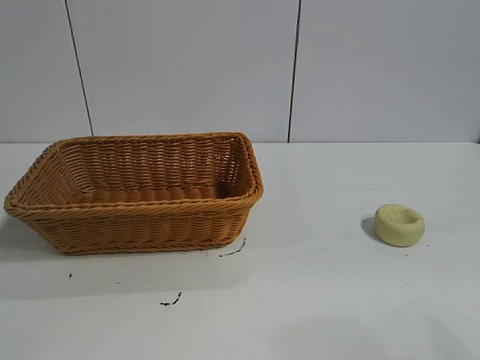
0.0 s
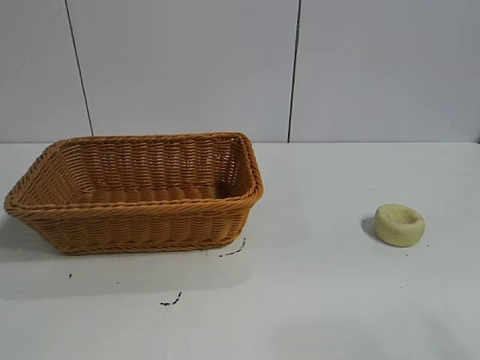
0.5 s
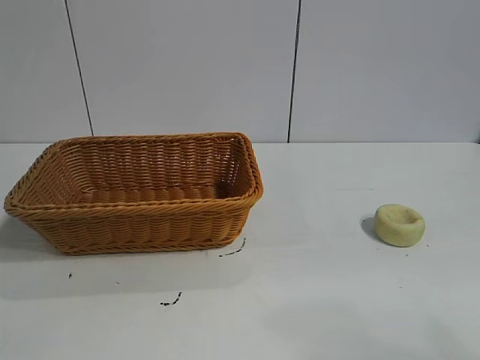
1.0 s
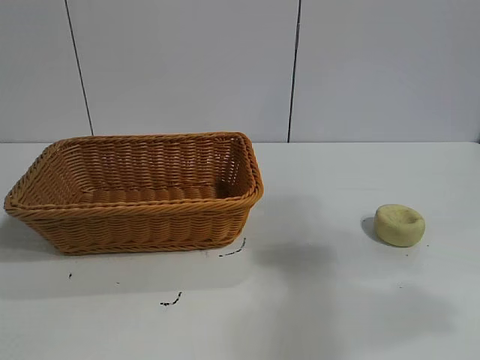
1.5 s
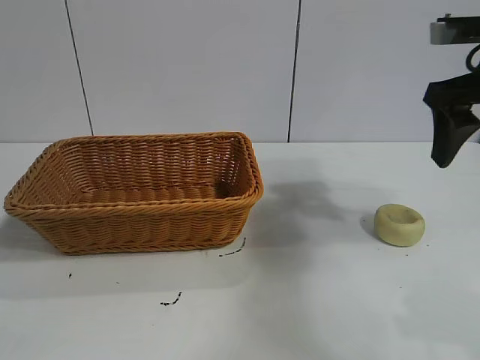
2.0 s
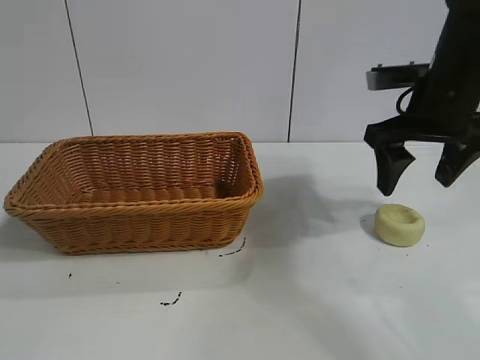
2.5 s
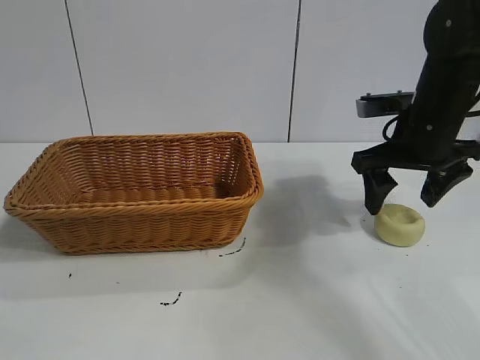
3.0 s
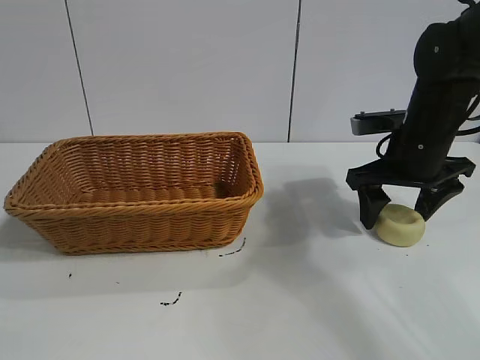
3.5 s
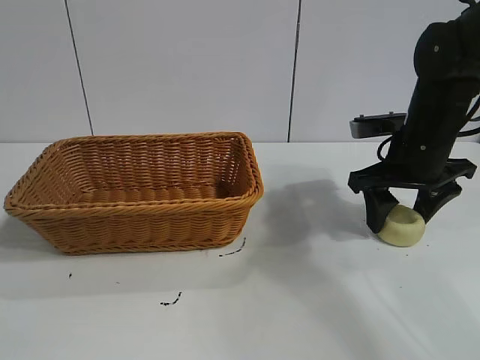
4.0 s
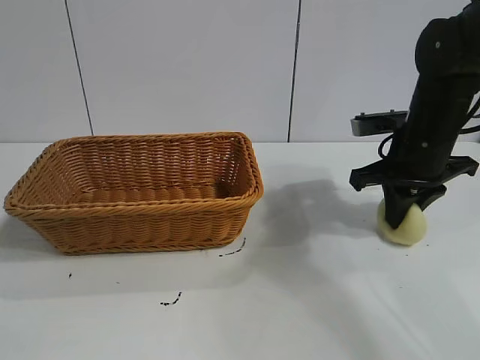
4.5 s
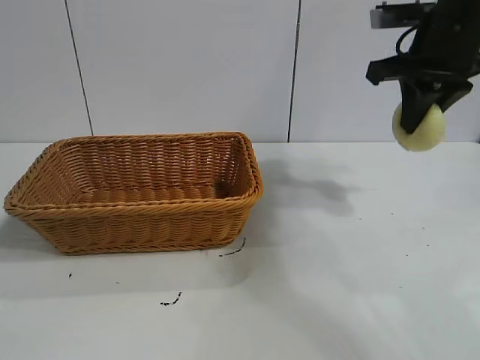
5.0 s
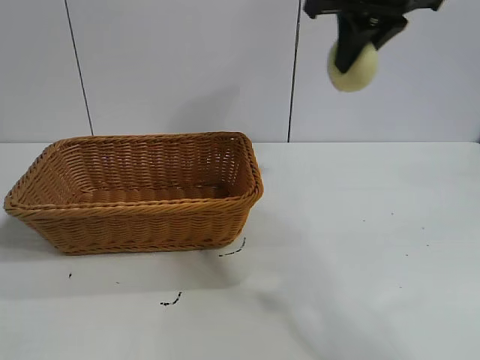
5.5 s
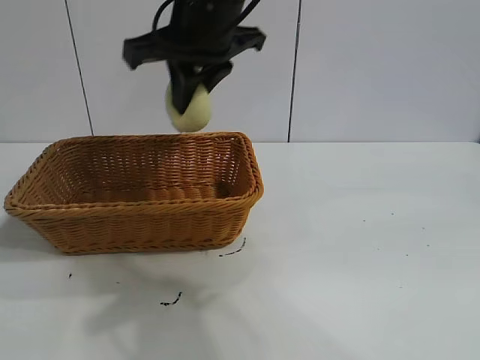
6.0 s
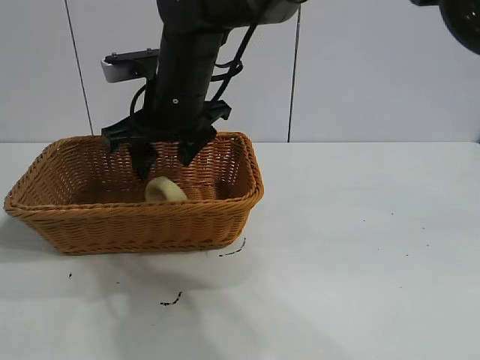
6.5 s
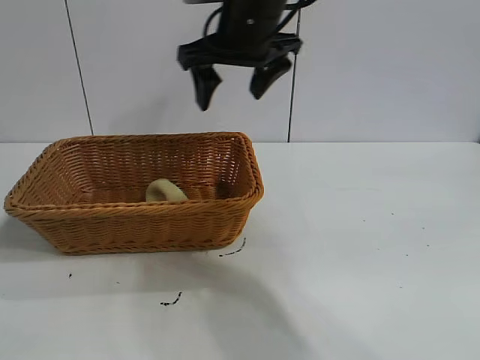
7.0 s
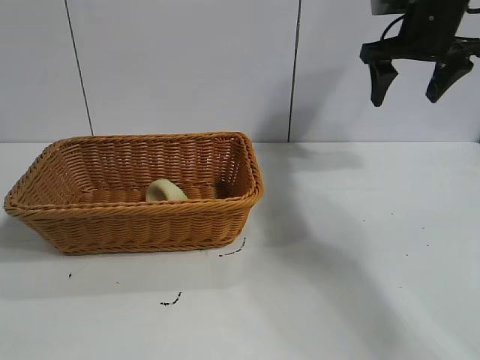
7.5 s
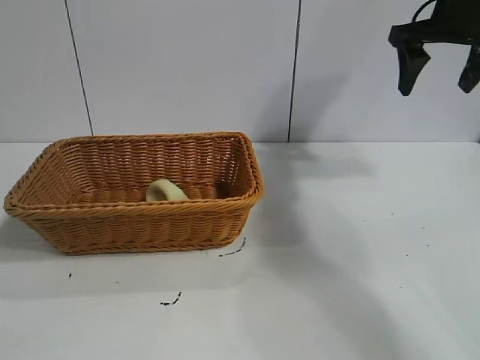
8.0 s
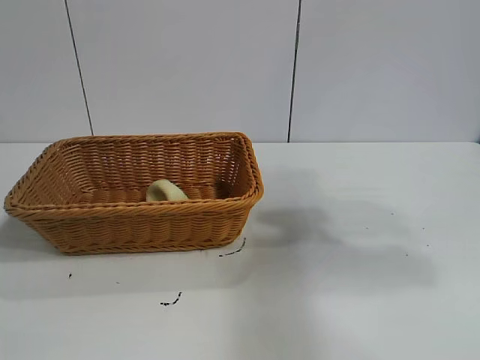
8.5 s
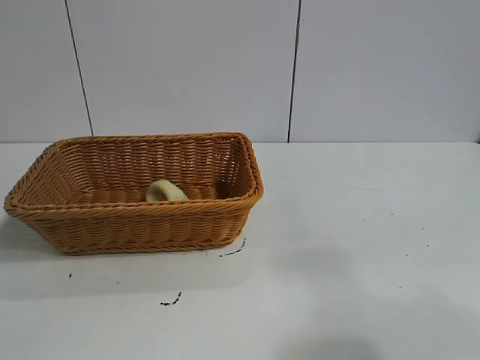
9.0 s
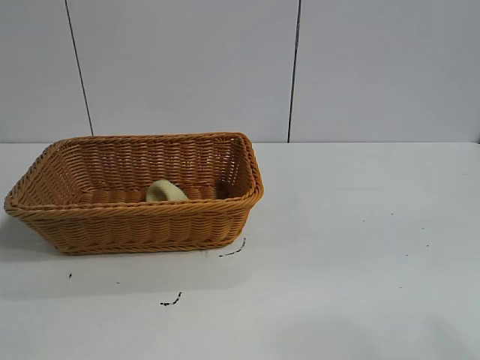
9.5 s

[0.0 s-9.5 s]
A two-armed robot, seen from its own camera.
Task of the whole recording: pick up the egg yolk pastry and put it into the basket.
Step, 1.0 to 4.0 s: Grasp egg yolk pastry with right gripper.
Step, 4.5 to 6.5 s: Place the egg yolk pastry in the basket with right gripper.
